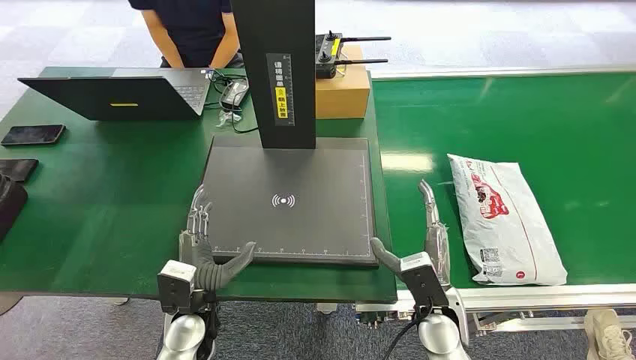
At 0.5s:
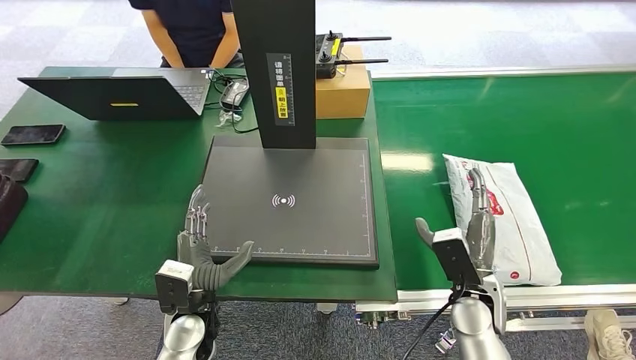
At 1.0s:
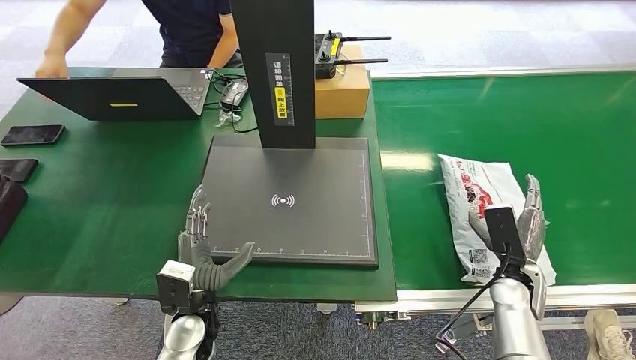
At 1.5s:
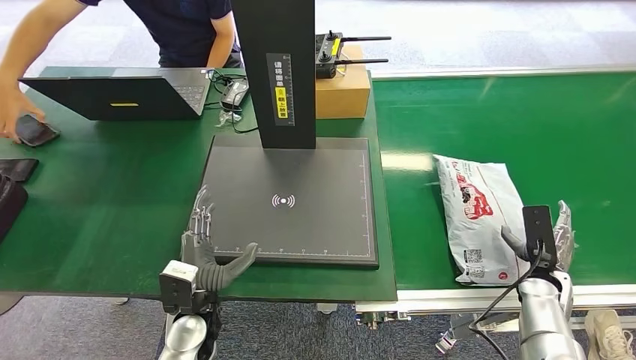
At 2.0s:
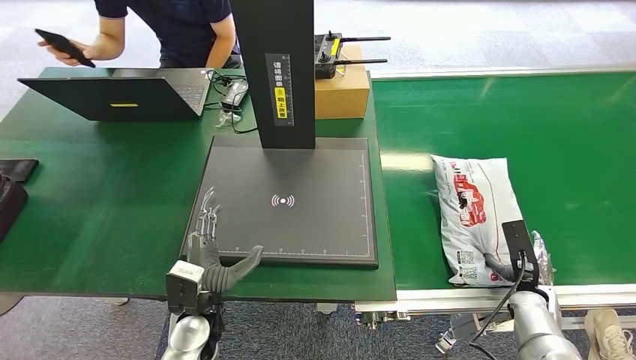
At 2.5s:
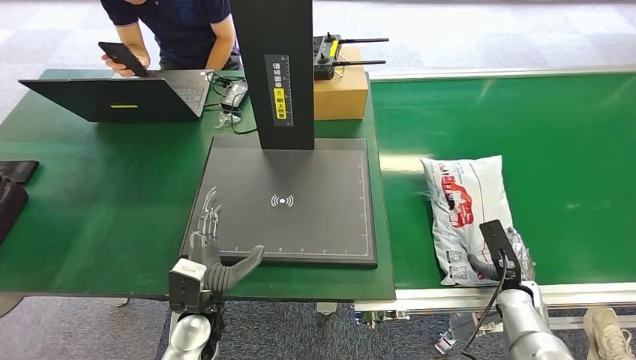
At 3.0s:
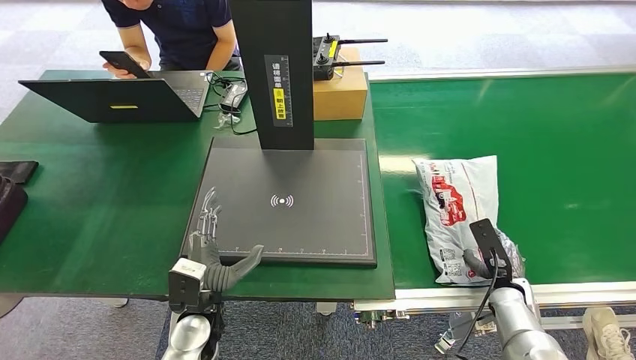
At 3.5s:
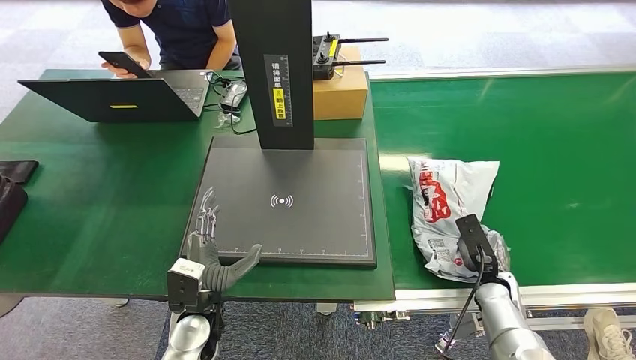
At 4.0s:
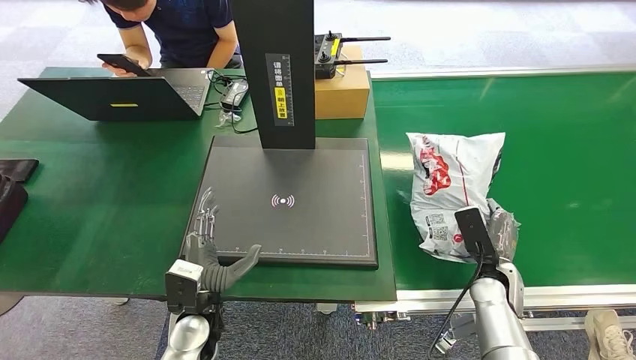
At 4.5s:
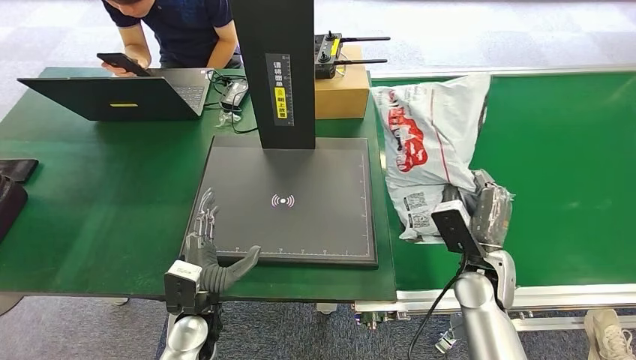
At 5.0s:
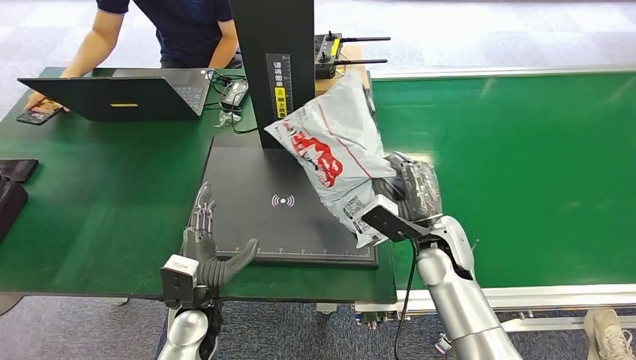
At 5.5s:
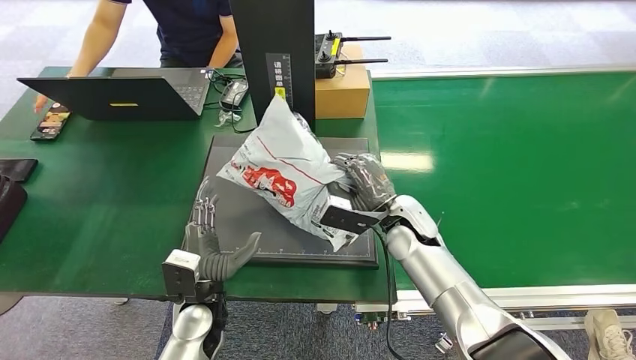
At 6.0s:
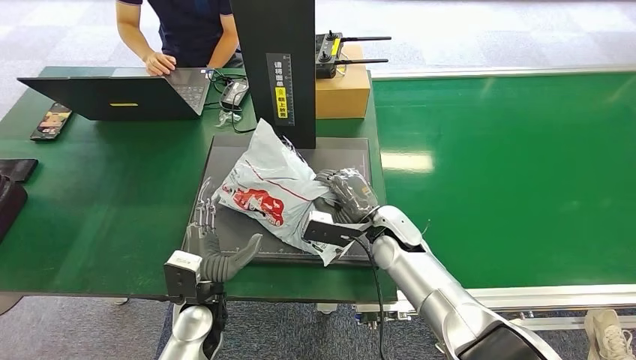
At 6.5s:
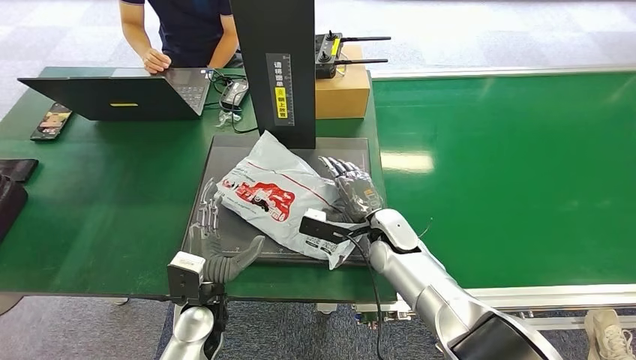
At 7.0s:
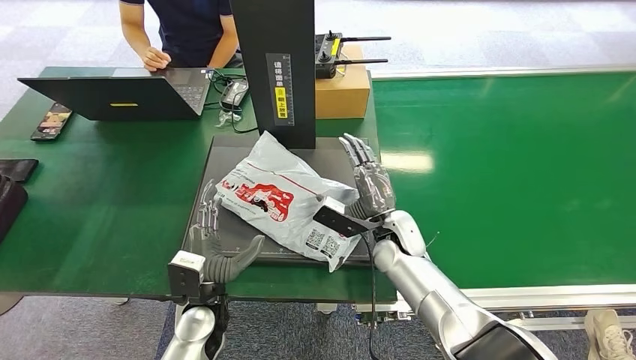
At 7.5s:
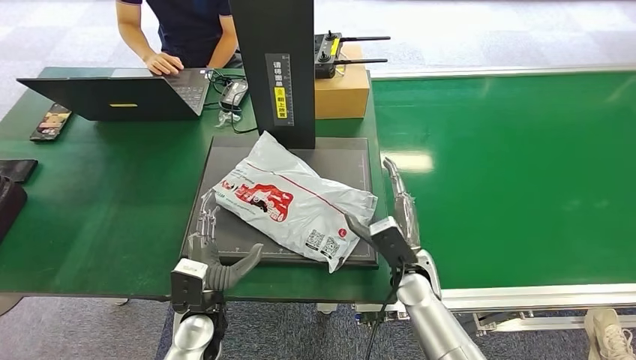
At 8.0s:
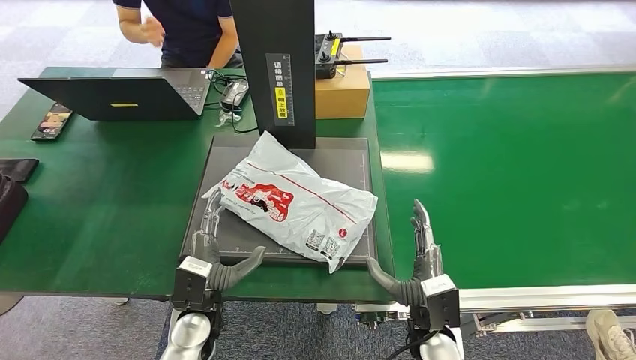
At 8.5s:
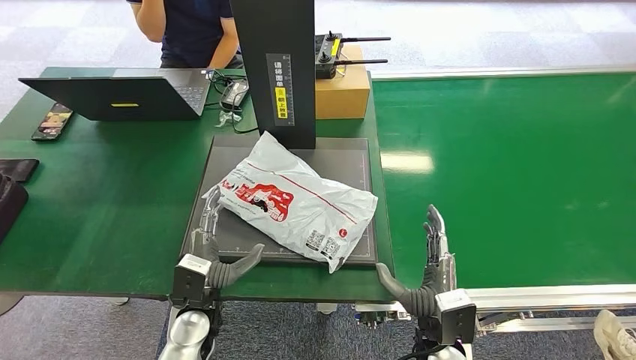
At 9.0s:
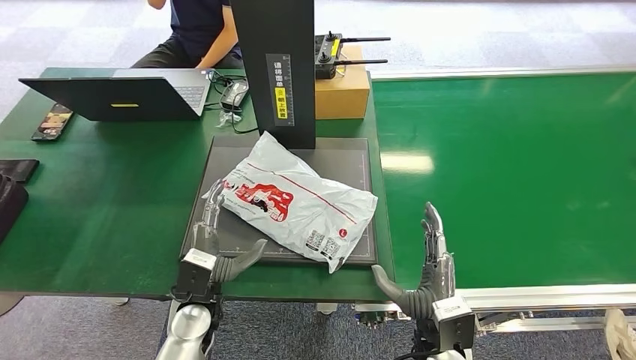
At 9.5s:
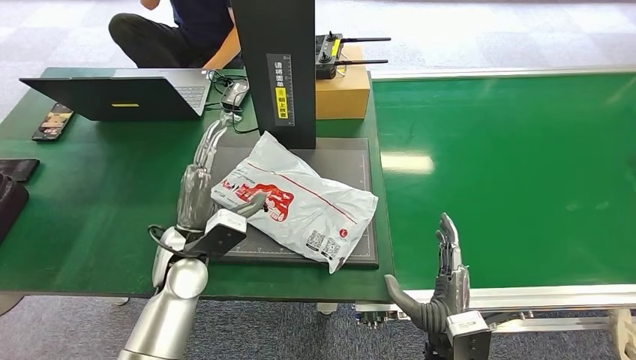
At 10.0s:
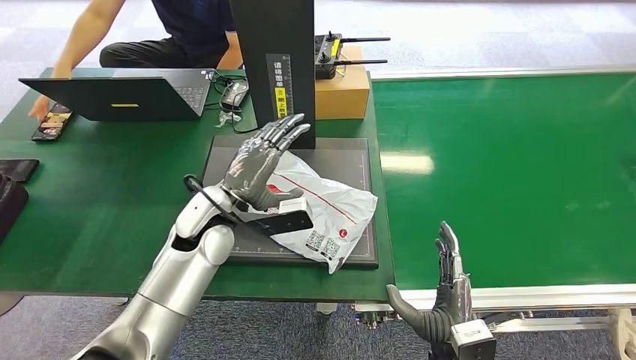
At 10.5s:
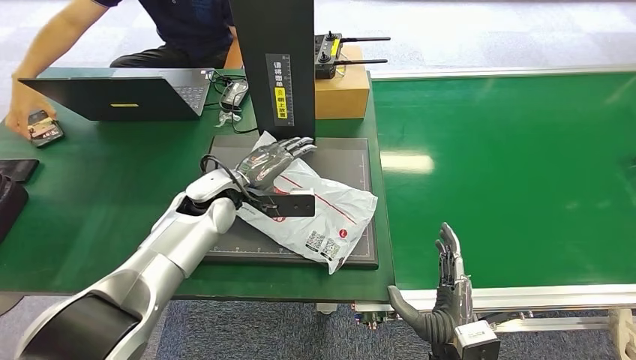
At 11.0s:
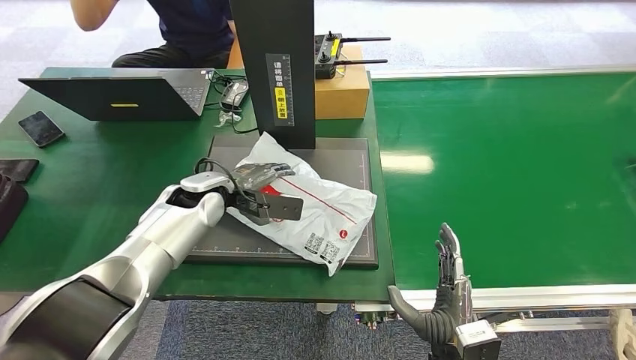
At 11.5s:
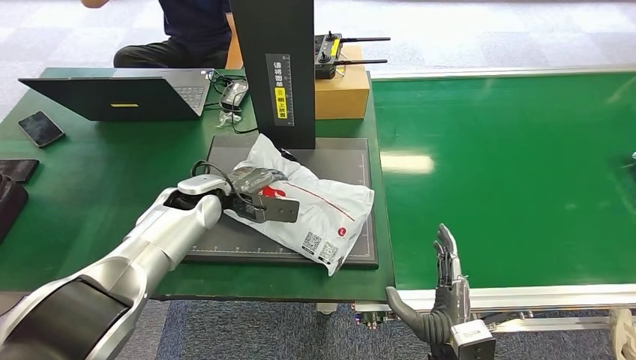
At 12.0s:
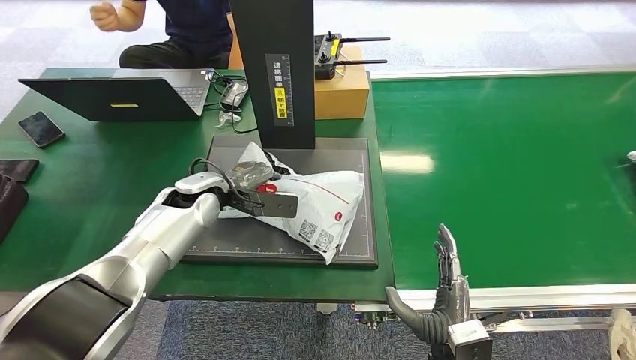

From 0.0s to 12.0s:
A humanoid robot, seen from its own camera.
Step, from 0.0s to 4.5s: Pick up the package from the conveyor belt.
Step, from 5.0s to 7.5s: Place the package onto the inbound machine.
From 2.0s to 4.0s: The right hand travels to the left by approximately 10 cm.
From 6.0s to 8.0s: The right hand moves backward and downward, about 20 cm.
From 8.0s to 10.0s: The right hand is displaced backward by about 5 cm. Meanwhile the left hand travels forward and upward by about 20 cm.
From 10.0s to 12.0s: The left hand travels forward and to the left by about 10 cm.

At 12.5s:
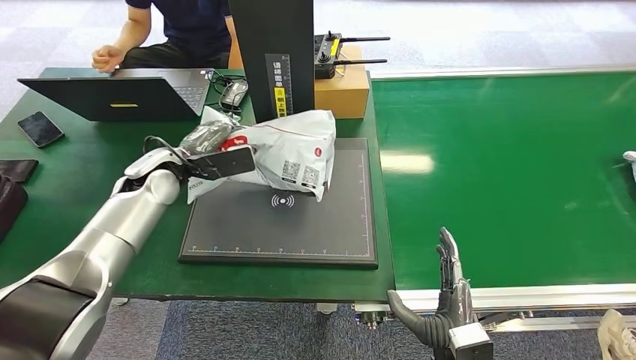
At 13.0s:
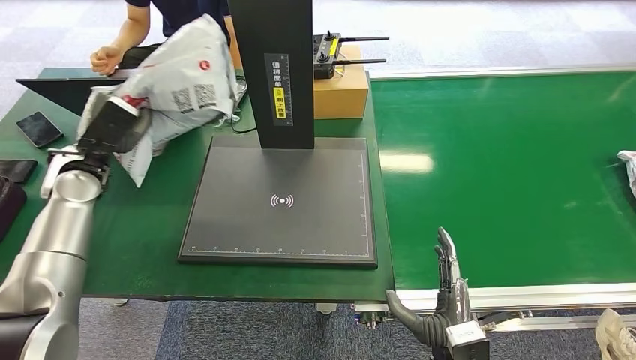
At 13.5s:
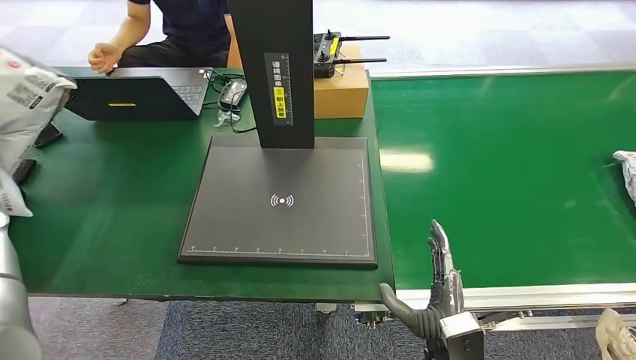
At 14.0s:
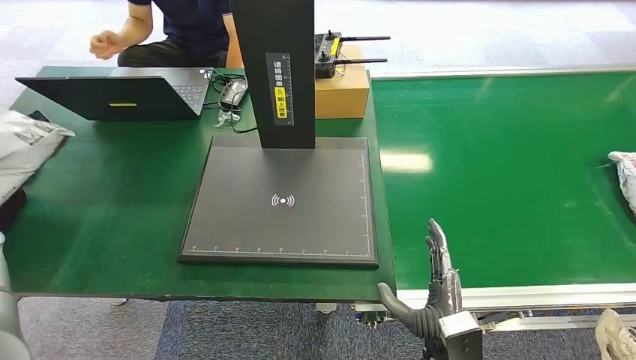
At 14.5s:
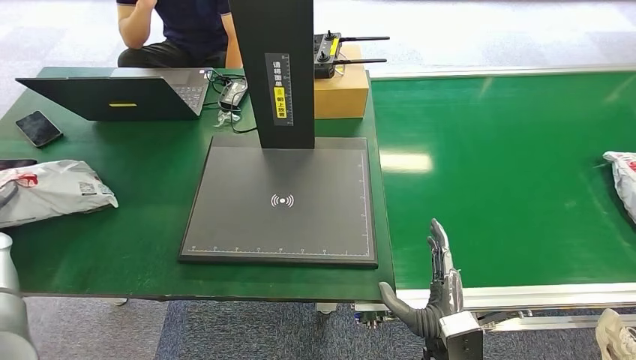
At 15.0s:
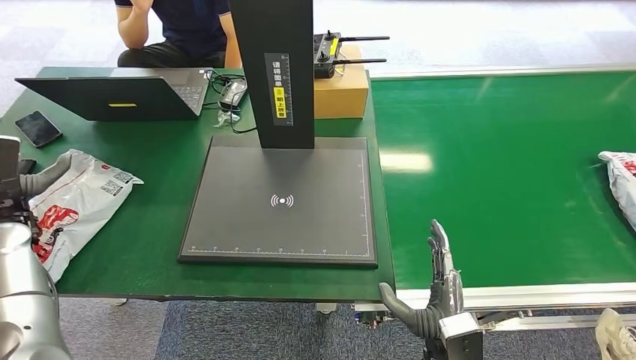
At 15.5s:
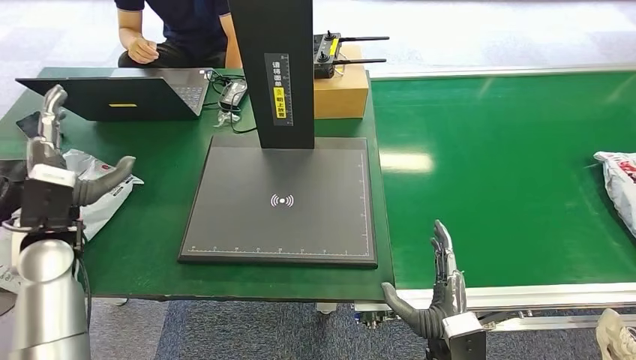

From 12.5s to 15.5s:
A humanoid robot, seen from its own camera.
Step, from 13.0s to 15.5s: Place the package into the parcel locker.
From 14.0s to 15.5s: The left hand shifts approximately 15 cm to the right.
